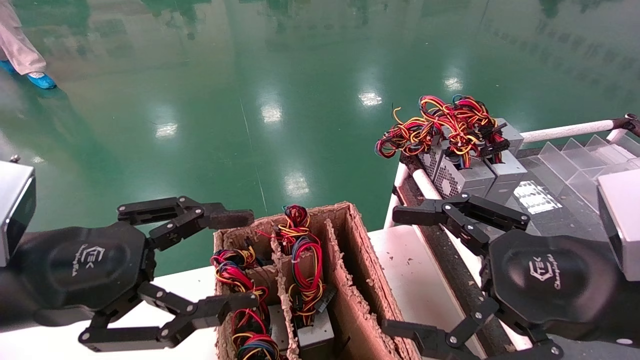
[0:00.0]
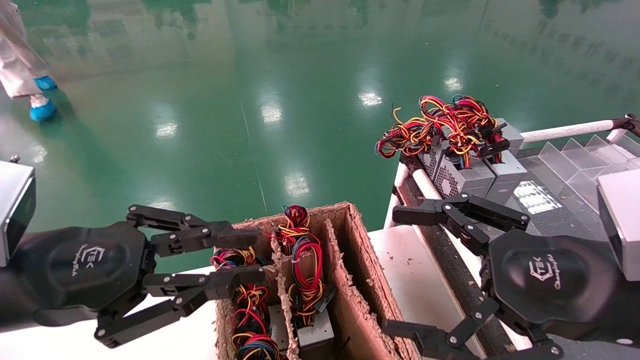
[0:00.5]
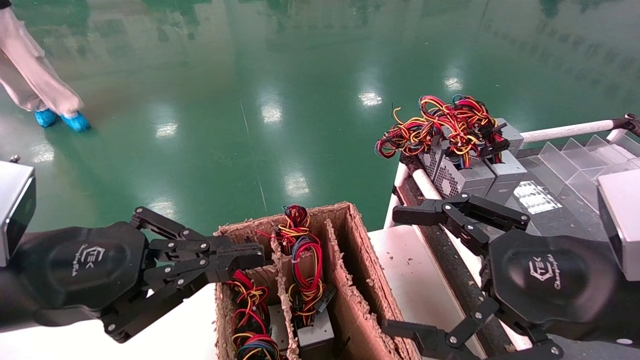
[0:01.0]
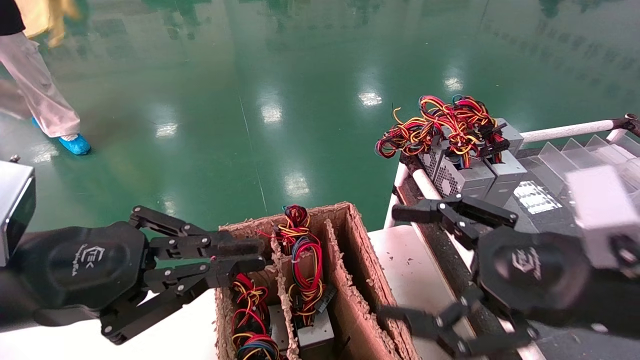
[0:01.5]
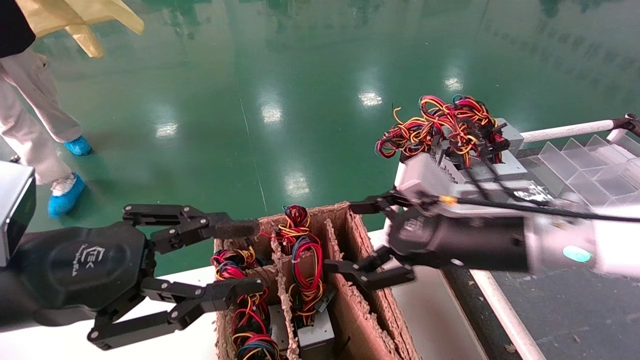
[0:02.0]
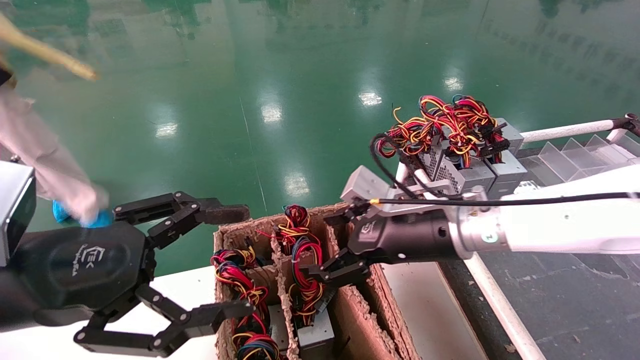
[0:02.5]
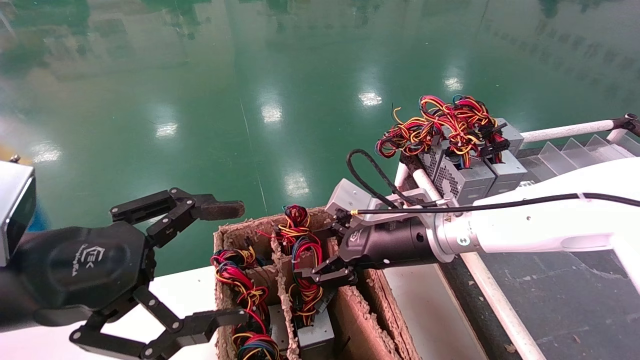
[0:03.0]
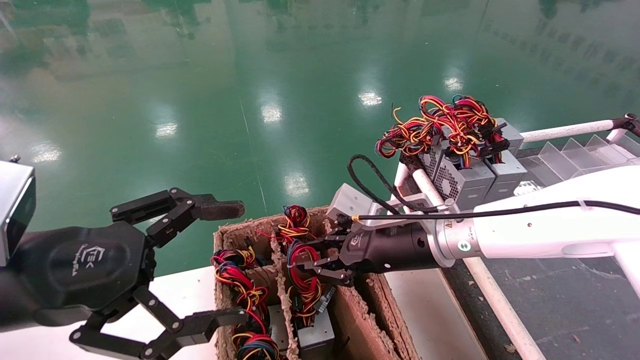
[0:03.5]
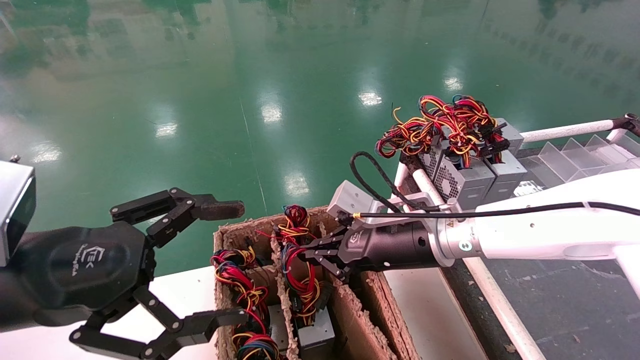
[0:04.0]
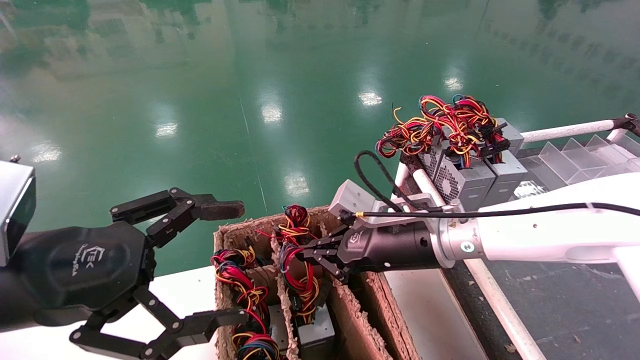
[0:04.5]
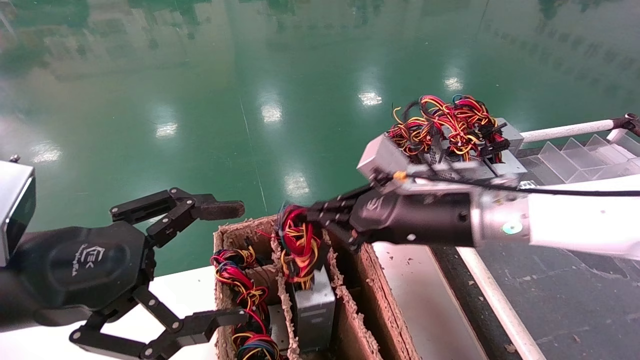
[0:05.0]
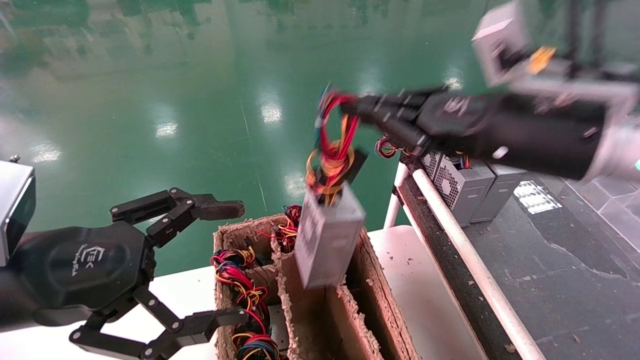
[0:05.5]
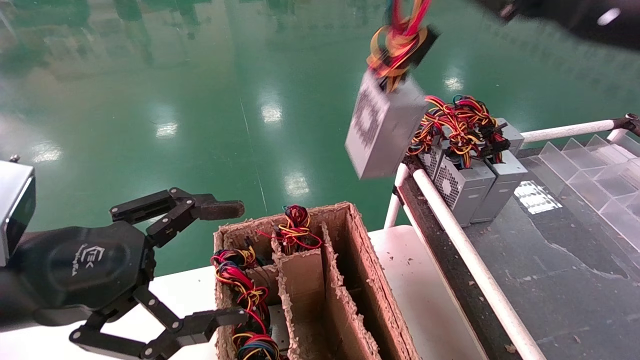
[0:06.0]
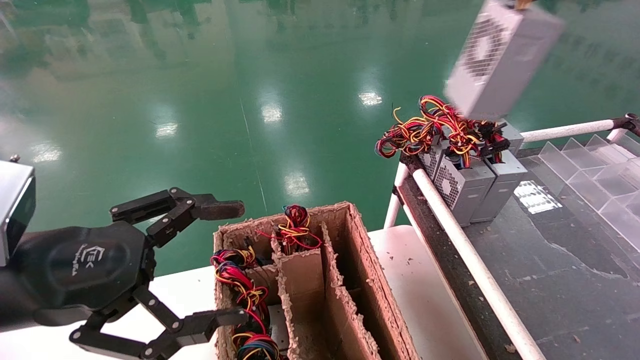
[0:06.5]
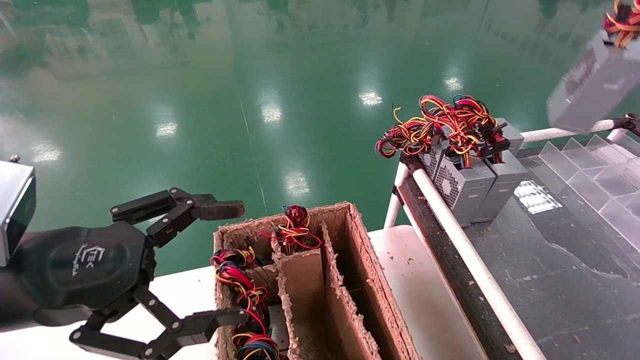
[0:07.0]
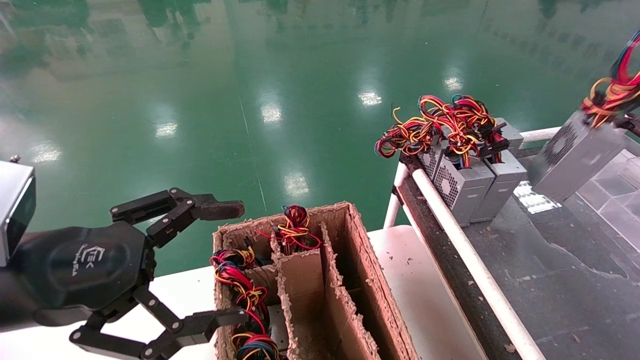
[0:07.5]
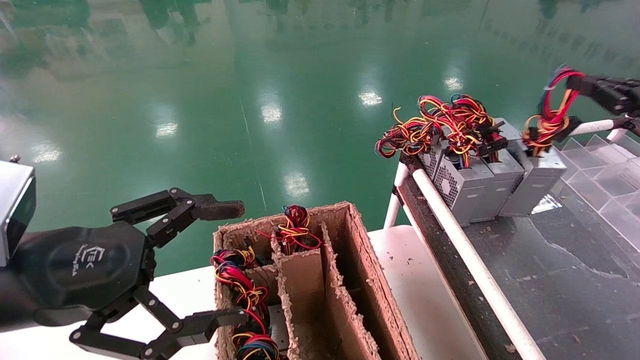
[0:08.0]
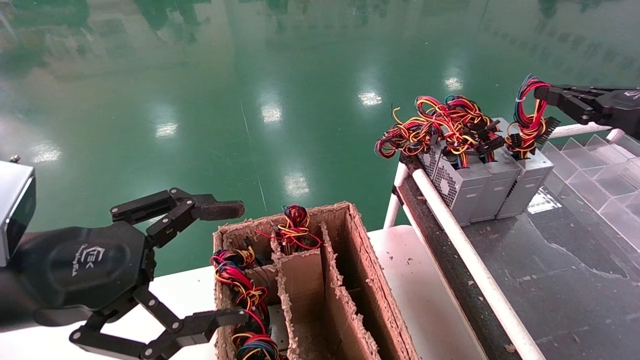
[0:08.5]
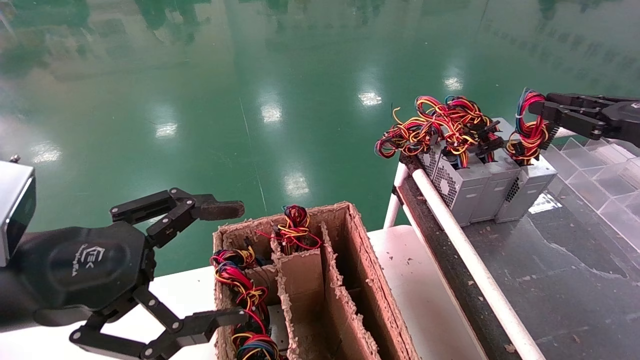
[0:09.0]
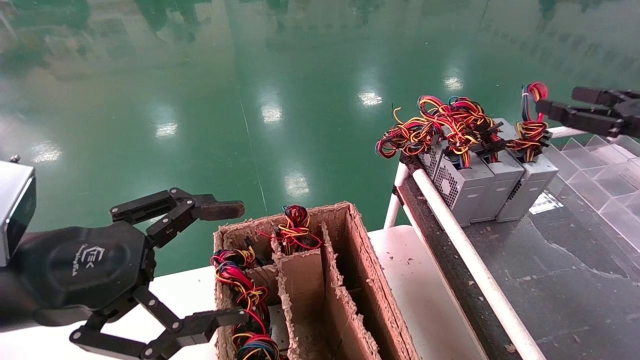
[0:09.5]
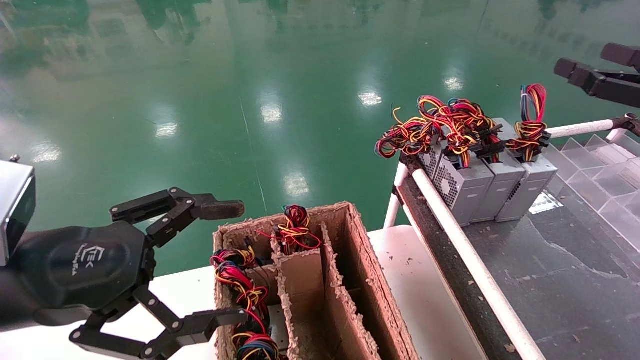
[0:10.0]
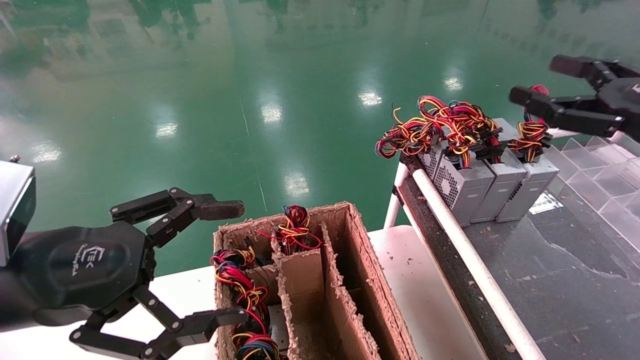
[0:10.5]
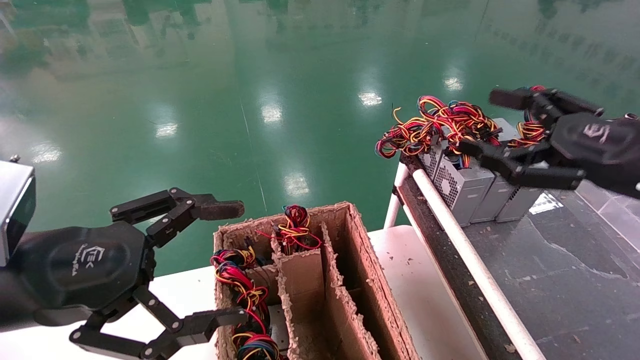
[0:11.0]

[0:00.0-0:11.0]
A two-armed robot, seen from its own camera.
Step, 0:01.0 to 0:04.5: Grab and lift the power supply from the large box.
Step, 0:05.0 to 0:08.5: Place the power supply on the operating table.
0:00.0 to 0:02.0: The right gripper moves forward and to the left, about 15 cm. Meanwhile the left gripper closes its fingers.
0:02.0 to 0:03.5: The right gripper travels to the left and forward by roughly 10 cm, and closes up; the left gripper opens up.
0:03.5 to 0:05.5: The right gripper goes some 20 cm upward, to the right and backward, and closes.
0:05.5 to 0:07.5: The right gripper heads to the right, covering some 30 cm.
0:07.5 to 0:09.0: The right gripper heads to the left and downward, covering some 10 cm.
0:09.0 to 0:11.0: The right gripper goes approximately 15 cm to the left and backward, and opens up.
